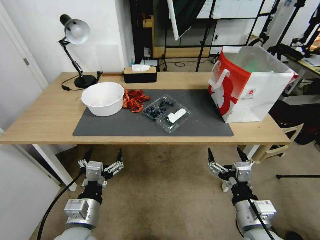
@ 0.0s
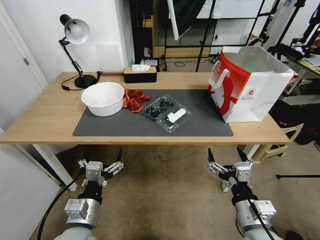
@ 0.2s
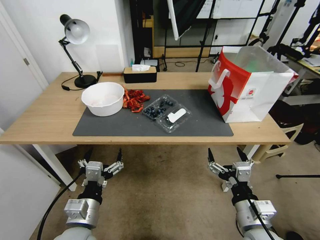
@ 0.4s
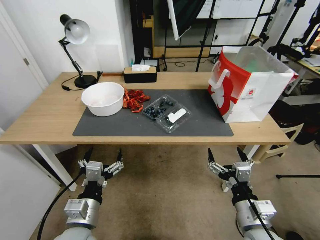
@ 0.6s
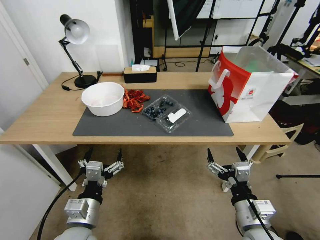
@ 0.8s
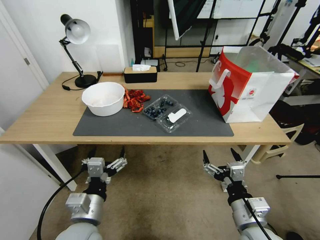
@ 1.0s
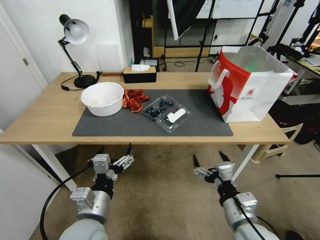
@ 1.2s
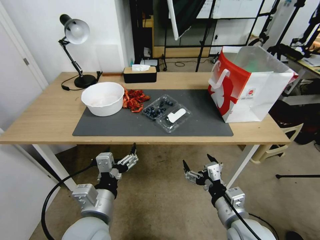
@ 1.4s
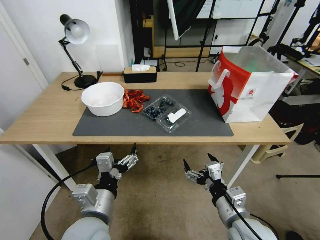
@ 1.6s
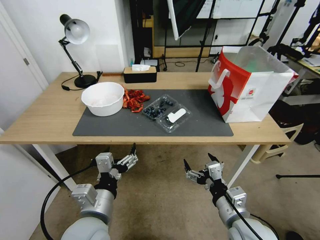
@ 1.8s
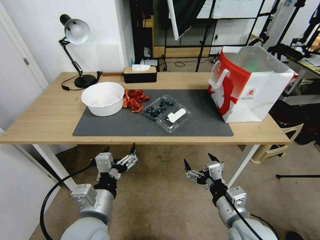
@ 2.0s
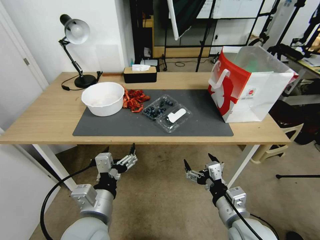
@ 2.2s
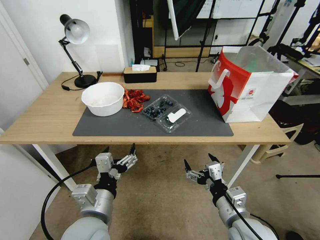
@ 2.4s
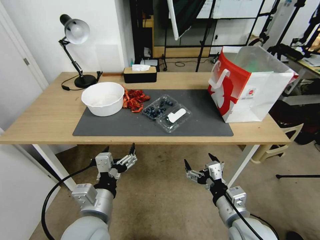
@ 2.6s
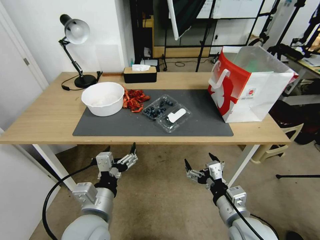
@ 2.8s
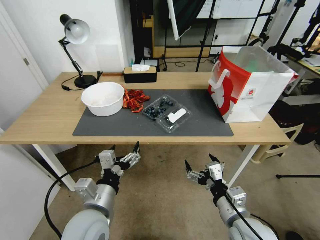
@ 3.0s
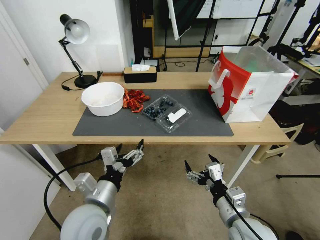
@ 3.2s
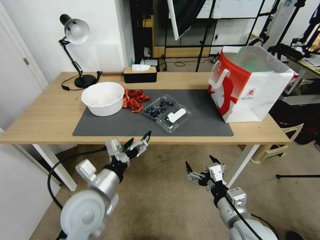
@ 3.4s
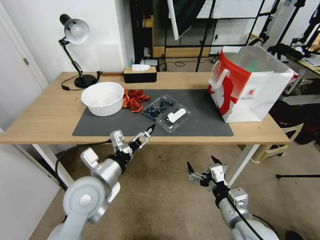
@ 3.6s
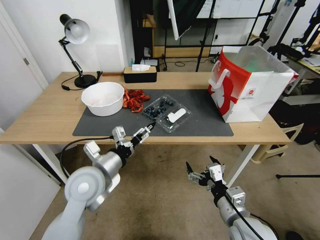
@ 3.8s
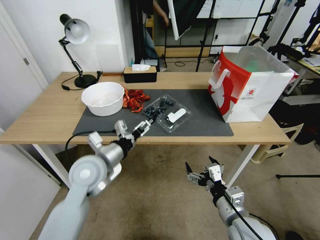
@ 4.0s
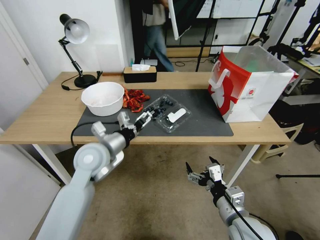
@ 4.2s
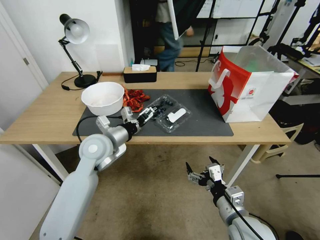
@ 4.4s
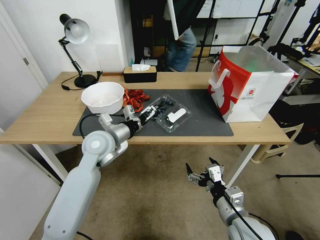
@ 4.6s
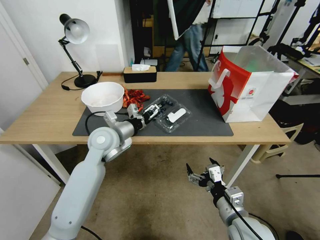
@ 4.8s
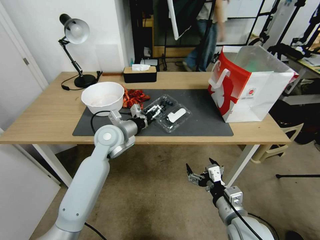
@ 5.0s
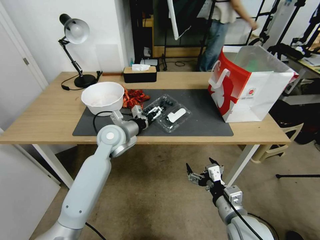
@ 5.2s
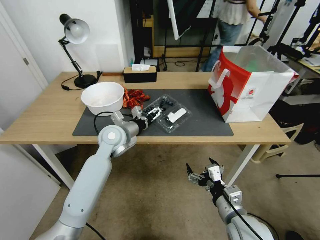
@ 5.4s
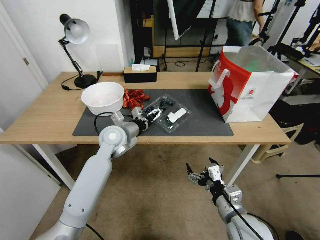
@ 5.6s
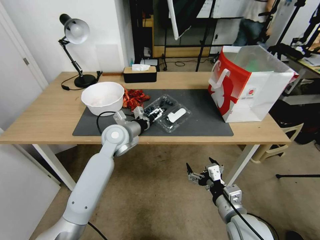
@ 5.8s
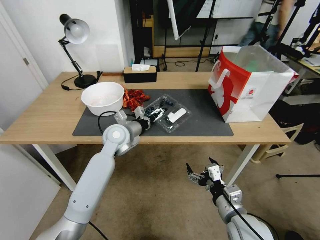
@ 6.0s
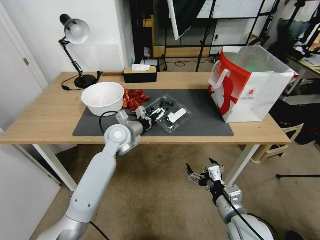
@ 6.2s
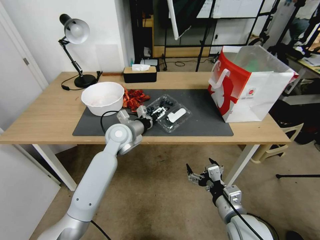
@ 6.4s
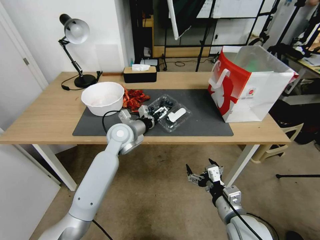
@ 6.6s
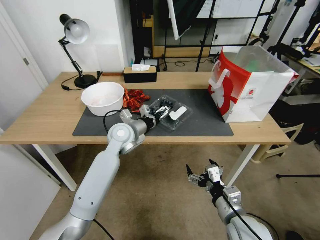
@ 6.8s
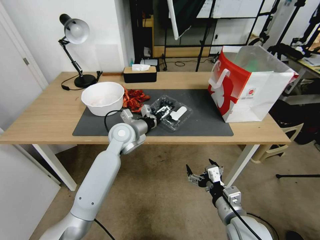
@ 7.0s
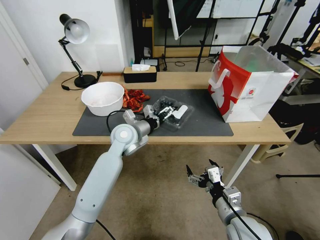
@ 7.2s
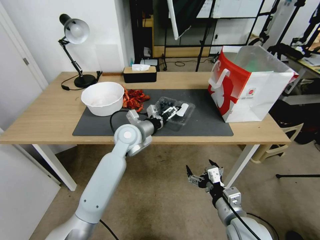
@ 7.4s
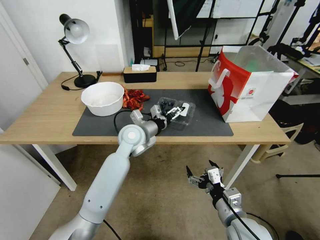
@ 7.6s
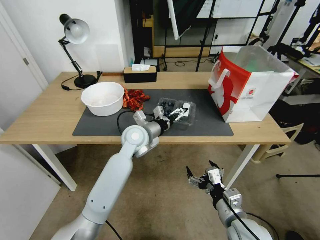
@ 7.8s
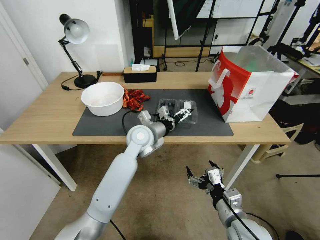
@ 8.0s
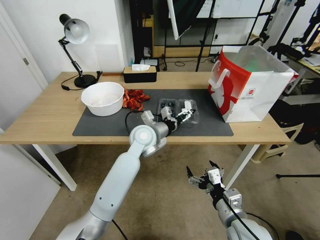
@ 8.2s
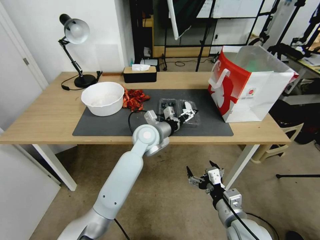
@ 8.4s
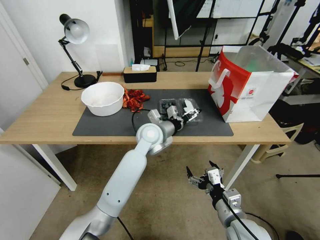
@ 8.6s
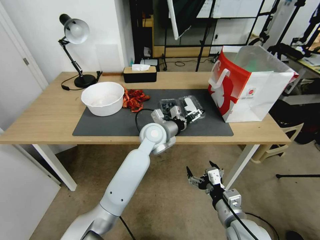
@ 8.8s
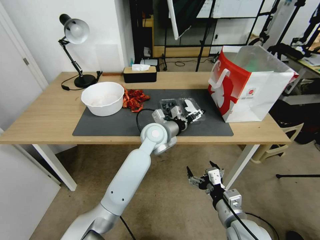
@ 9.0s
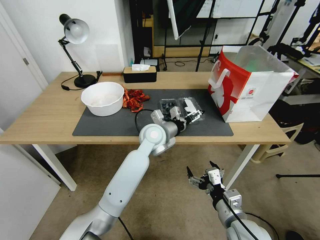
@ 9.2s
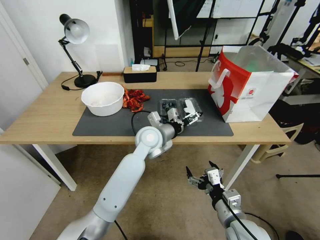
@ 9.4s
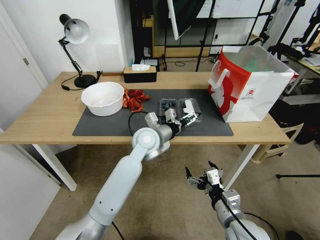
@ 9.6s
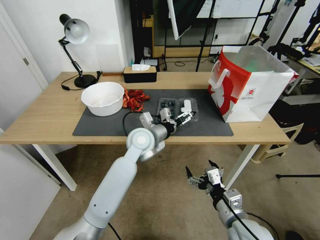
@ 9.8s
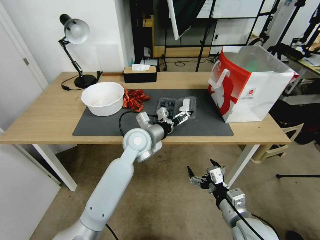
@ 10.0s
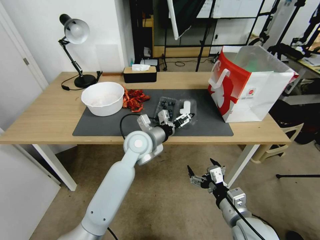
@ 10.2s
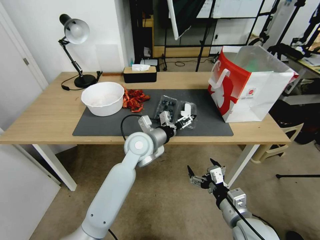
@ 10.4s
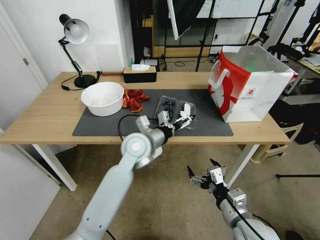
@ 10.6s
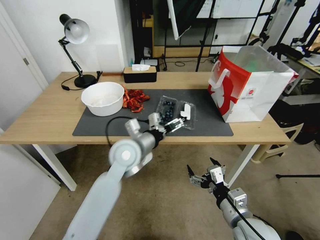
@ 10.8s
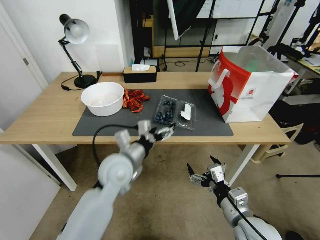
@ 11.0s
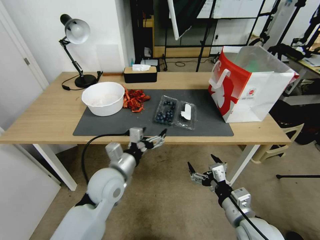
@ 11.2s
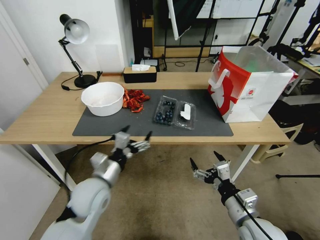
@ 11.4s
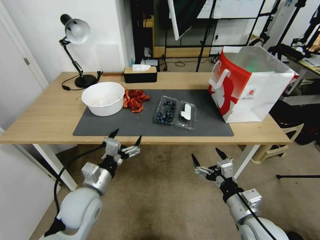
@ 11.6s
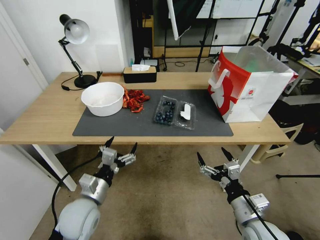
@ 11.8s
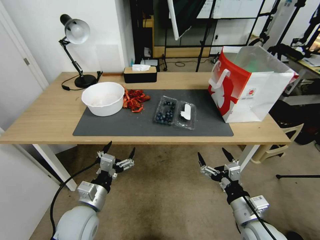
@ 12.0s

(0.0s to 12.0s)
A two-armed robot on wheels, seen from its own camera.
Task of the whole recording: Close the takeout container lid, then place the container into the takeout bag.
1.6s - 3.0s: The grippers move only a little.
3.0s - 4.4s: The left gripper travels forward by approximately 20 cm.
4.4s - 6.0s: The left gripper is displaced forward by approximately 10 cm.
6.0s - 7.6s: The left gripper moves to the right, about 5 cm.
7.6s - 9.0s: The left gripper is displaced to the right by about 5 cm.
9.0s - 10.4s: The left gripper ends up about 5 cm from where it was.
10.4s - 12.0s: The left gripper goes about 25 cm backward, to the left and downward.

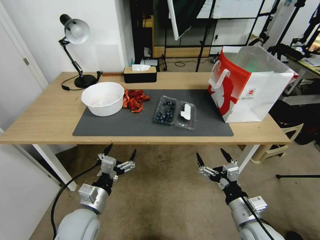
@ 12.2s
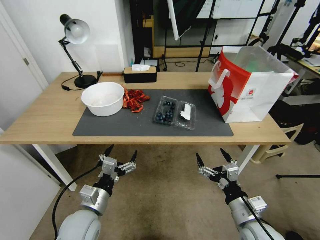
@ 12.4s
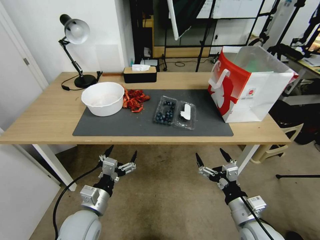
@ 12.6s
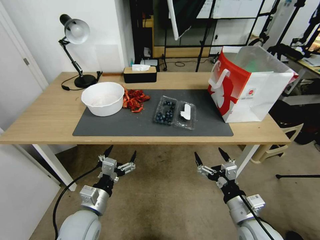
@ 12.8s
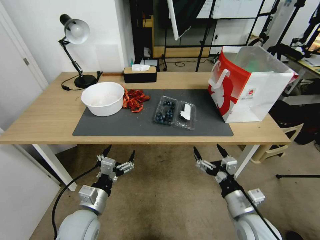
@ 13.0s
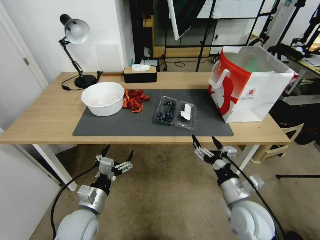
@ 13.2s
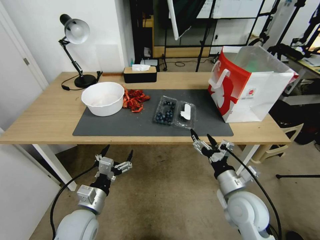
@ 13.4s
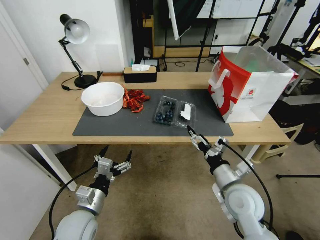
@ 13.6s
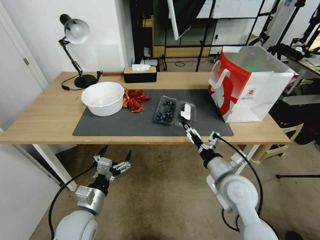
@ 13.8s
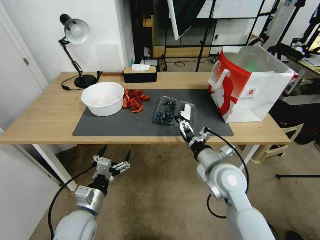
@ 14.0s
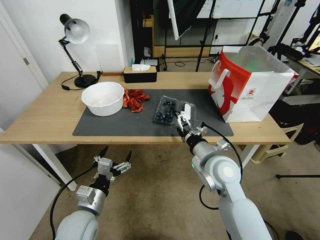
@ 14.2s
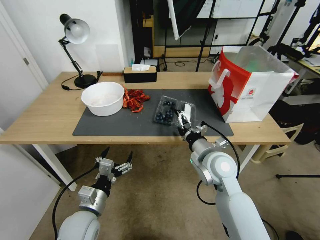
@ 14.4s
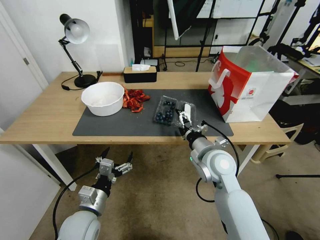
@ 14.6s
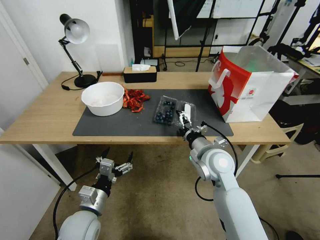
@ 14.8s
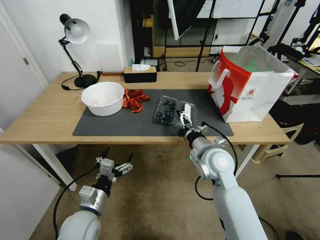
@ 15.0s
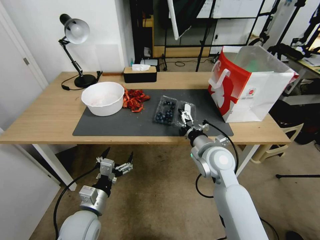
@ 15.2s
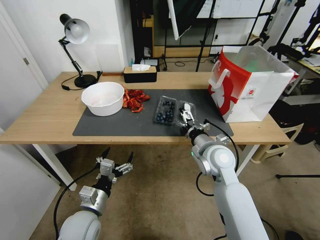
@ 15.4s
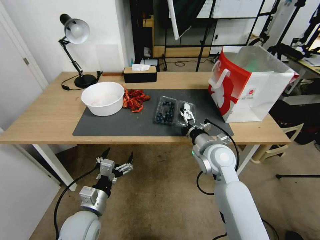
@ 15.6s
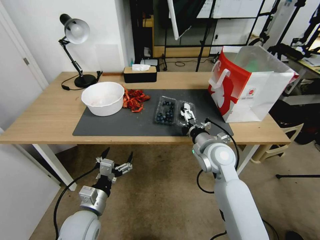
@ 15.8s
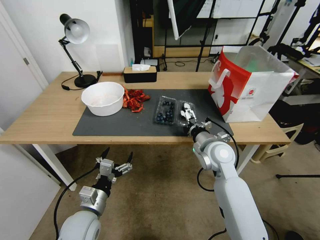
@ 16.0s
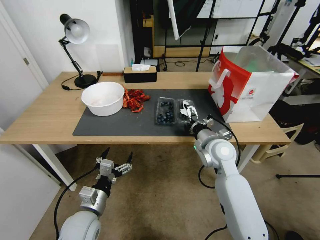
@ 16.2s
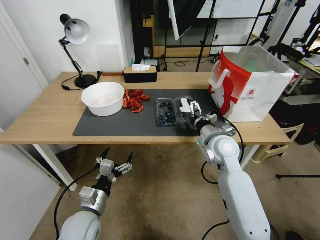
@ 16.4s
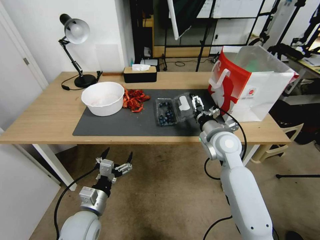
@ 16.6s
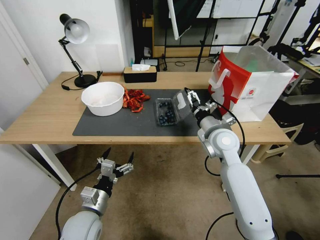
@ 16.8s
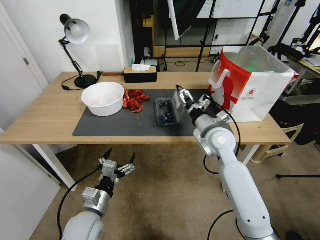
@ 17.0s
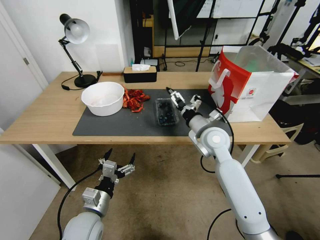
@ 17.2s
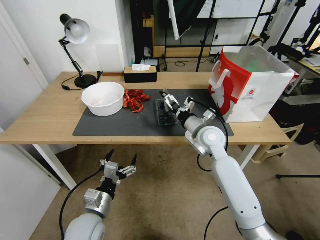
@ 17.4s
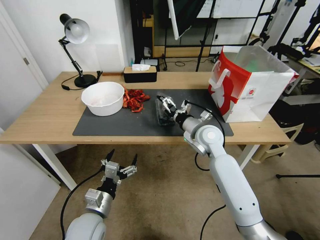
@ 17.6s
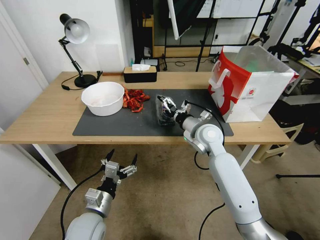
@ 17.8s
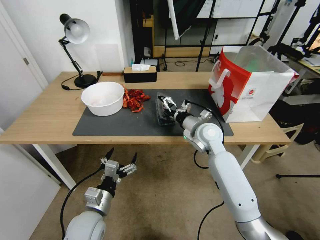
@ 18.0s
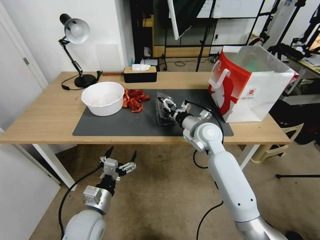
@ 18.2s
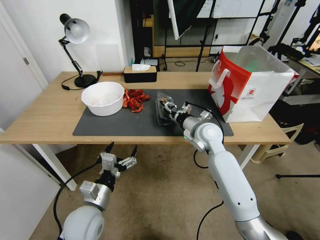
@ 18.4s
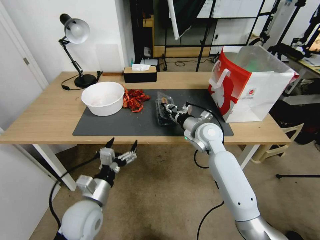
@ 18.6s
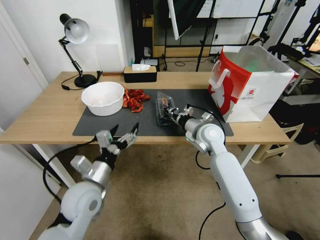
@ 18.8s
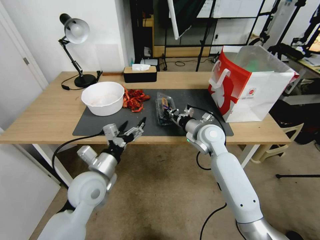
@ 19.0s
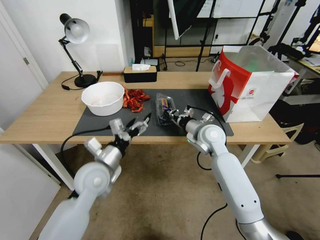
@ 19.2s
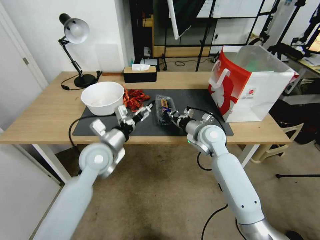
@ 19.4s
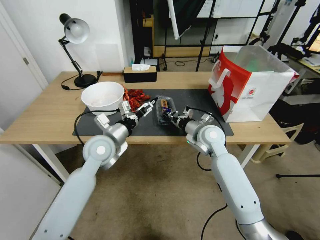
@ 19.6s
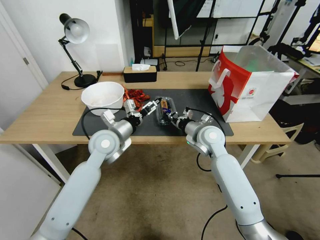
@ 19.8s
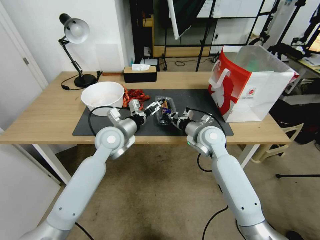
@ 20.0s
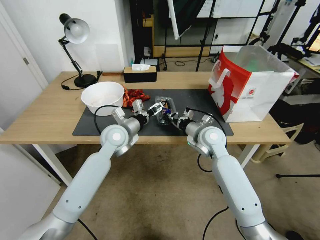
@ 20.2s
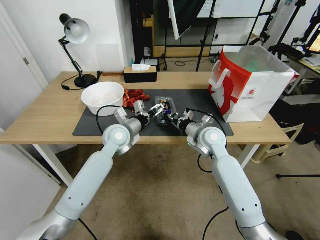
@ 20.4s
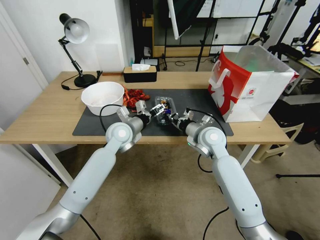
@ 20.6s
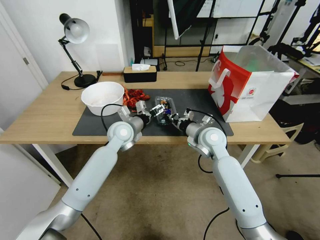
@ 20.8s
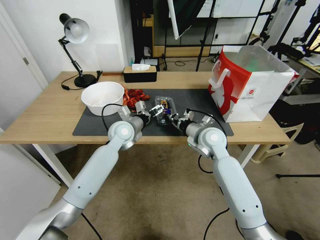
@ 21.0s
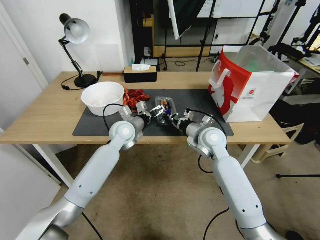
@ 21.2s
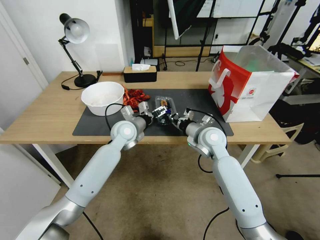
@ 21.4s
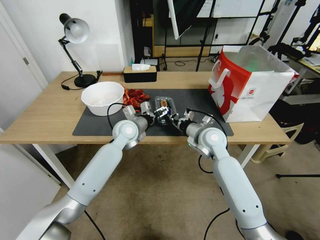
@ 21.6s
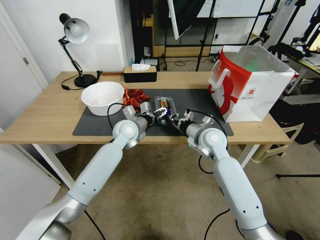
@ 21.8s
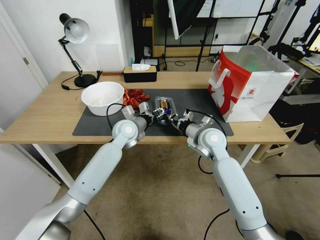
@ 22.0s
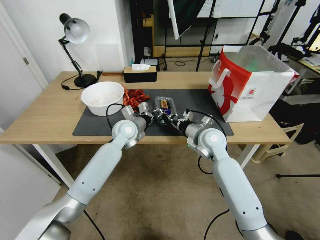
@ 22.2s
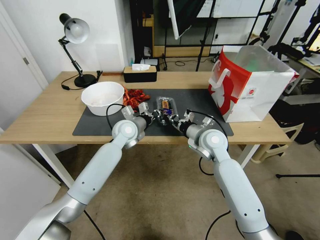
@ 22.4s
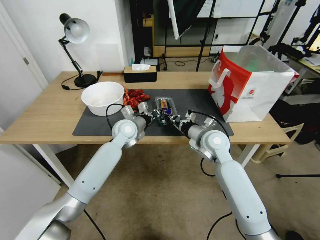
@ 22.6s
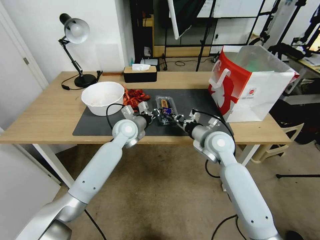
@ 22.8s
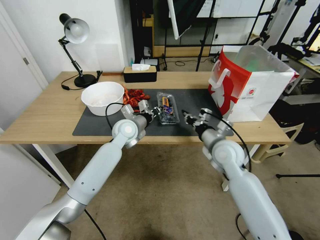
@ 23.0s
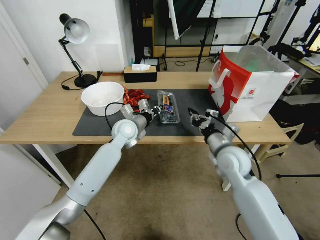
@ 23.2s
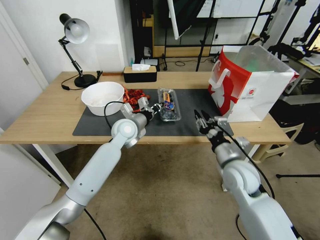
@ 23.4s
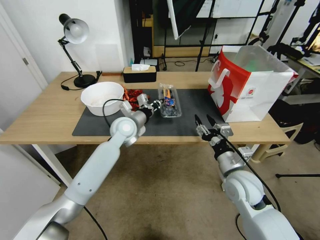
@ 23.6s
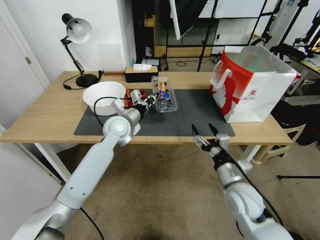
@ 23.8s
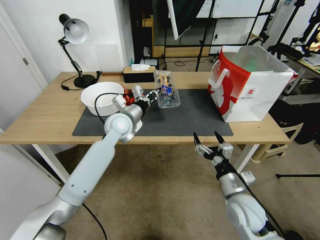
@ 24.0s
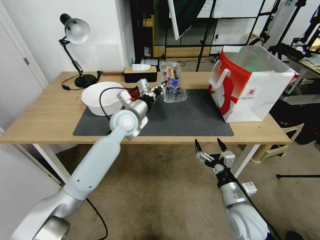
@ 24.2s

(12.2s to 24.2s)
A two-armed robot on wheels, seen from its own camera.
Task of the whole recording: Close the takeout container lid, then place the container into the takeout bag.
12.2s - 13.8s: The right gripper travels forward and upward by approximately 10 cm.
13.8s - 15.2s: The right gripper moves forward, some 10 cm.
15.2s - 16.6s: The right gripper moves approximately 5 cm.
16.6s - 18.2s: The right gripper ends up roughly 5 cm from where it was.
18.2s - 19.8s: The left gripper shifts approximately 25 cm forward and upward. The right gripper closes up.
19.8s - 21.2s: The left gripper moves forward, roughly 10 cm.
21.2s - 22.6s: The left gripper closes.
22.6s - 24.2s: The right gripper is displaced backward and downward by about 25 cm, and opens its fingers; the left gripper goes about 5 cm upward.
